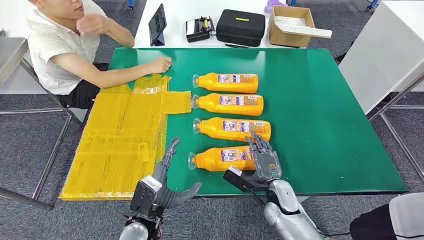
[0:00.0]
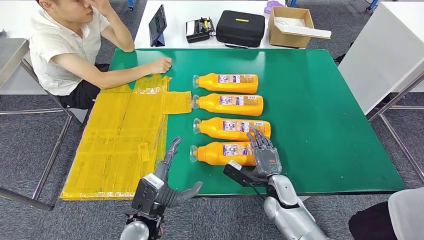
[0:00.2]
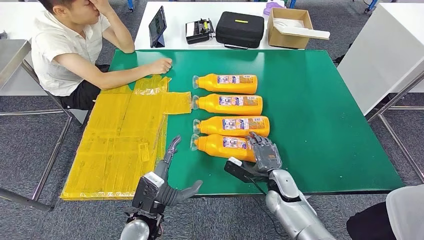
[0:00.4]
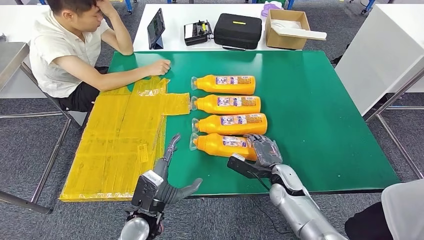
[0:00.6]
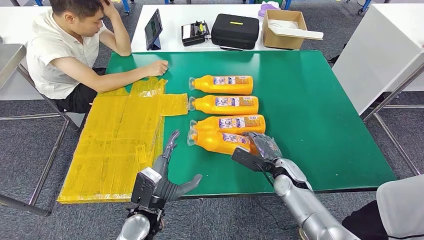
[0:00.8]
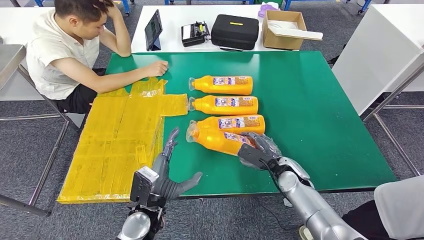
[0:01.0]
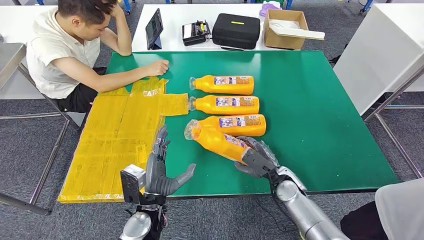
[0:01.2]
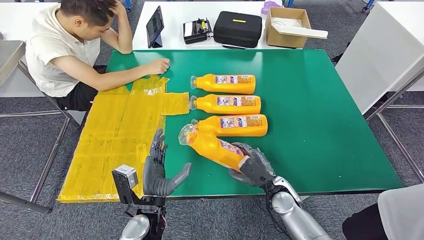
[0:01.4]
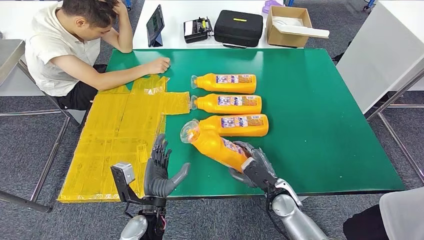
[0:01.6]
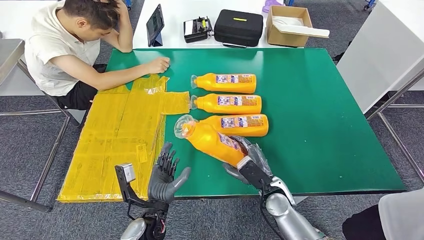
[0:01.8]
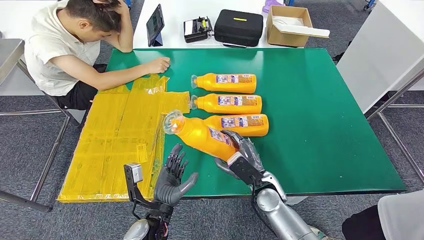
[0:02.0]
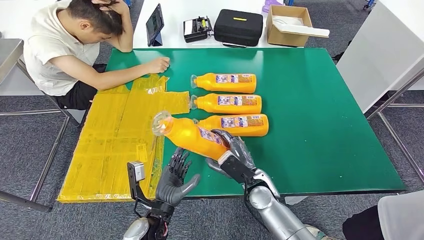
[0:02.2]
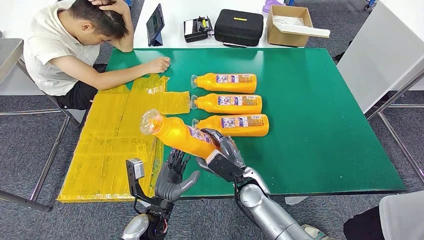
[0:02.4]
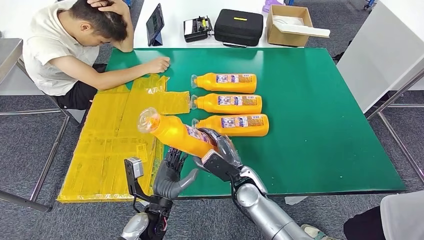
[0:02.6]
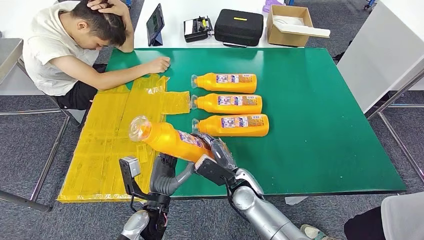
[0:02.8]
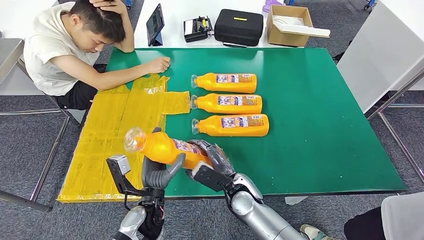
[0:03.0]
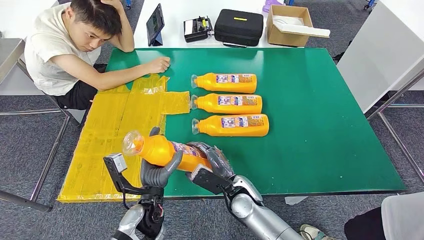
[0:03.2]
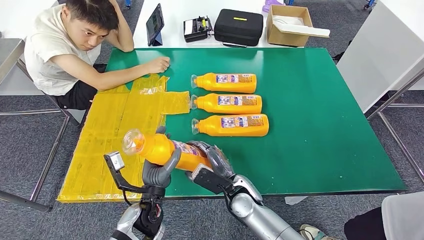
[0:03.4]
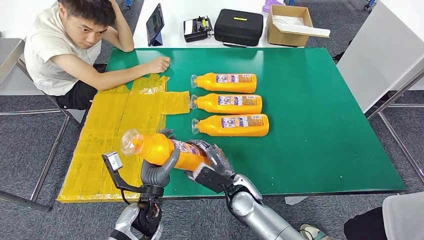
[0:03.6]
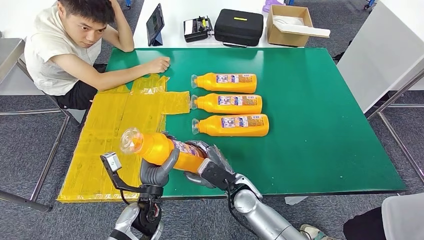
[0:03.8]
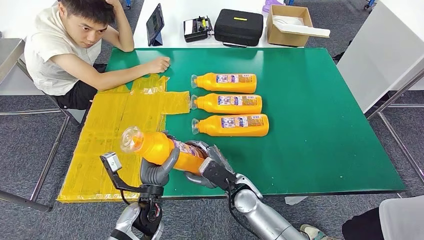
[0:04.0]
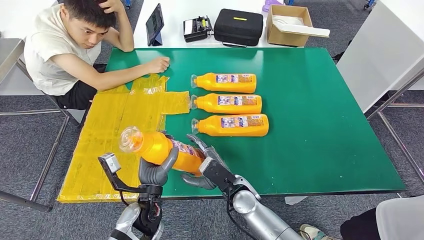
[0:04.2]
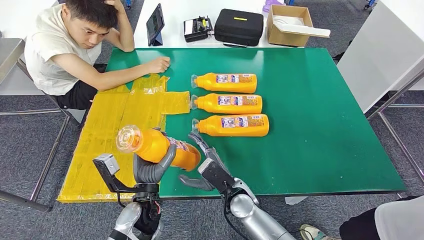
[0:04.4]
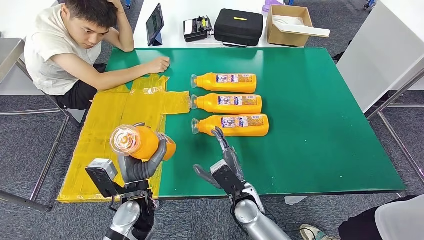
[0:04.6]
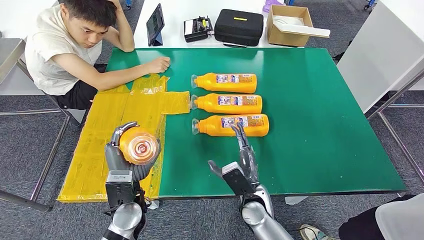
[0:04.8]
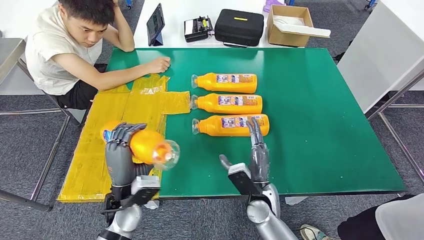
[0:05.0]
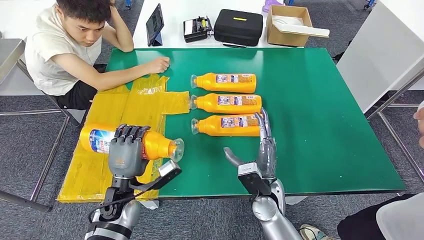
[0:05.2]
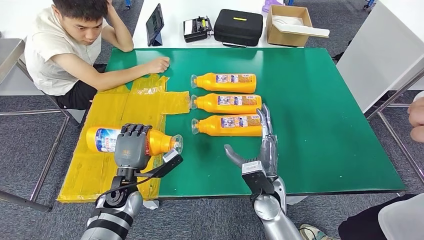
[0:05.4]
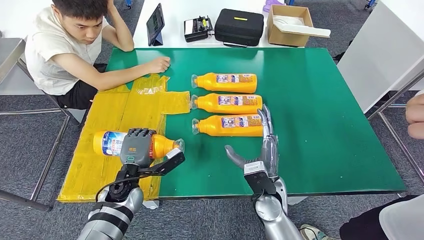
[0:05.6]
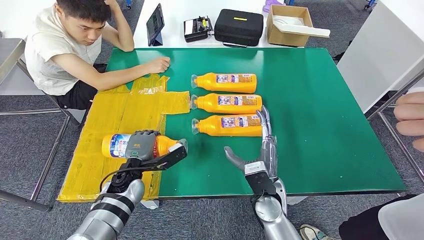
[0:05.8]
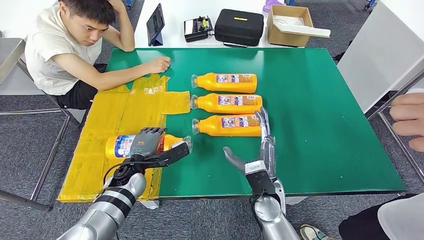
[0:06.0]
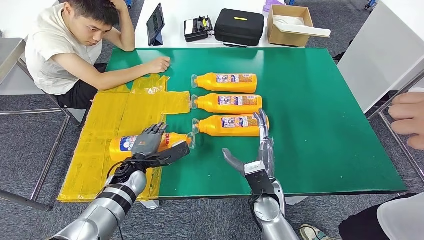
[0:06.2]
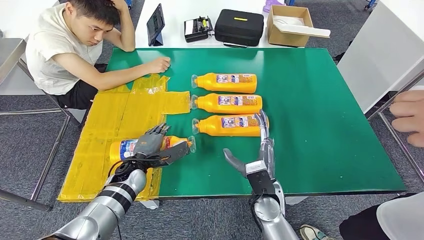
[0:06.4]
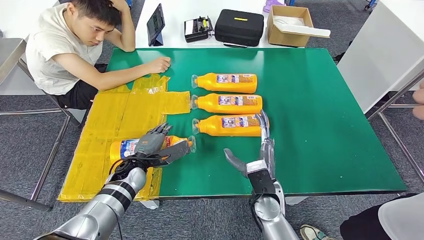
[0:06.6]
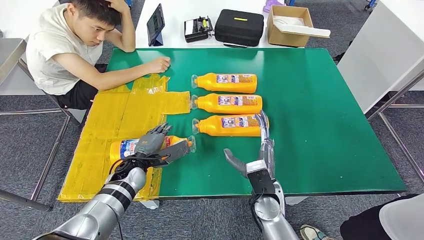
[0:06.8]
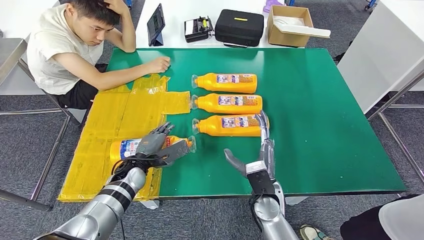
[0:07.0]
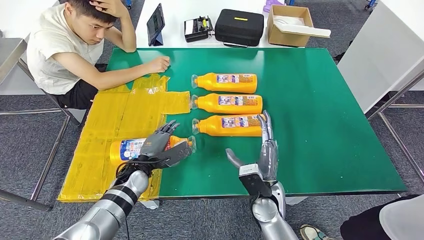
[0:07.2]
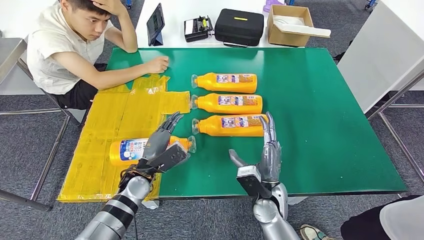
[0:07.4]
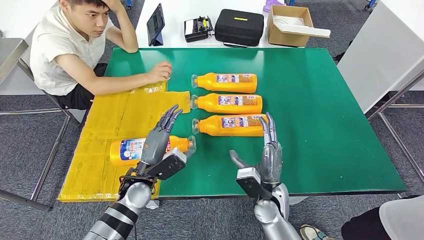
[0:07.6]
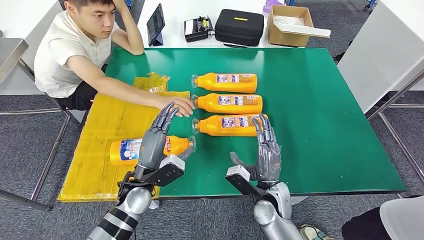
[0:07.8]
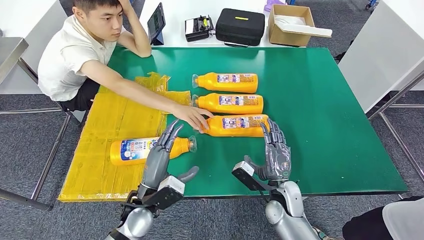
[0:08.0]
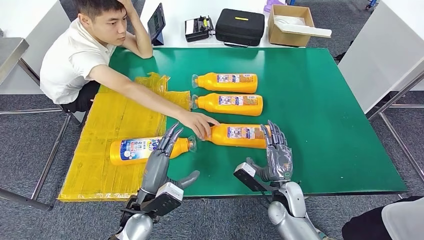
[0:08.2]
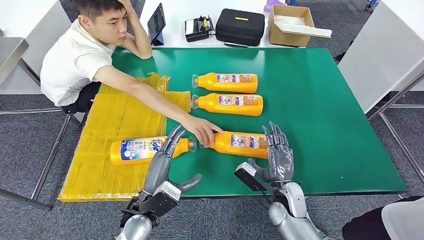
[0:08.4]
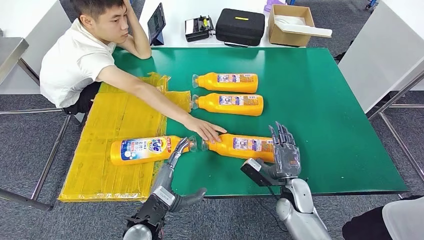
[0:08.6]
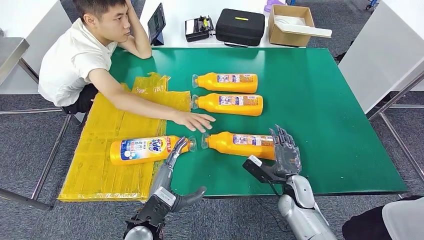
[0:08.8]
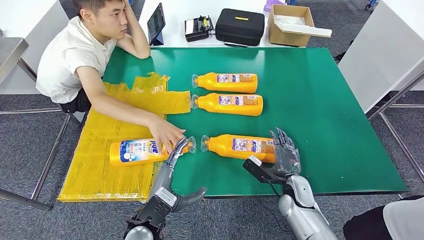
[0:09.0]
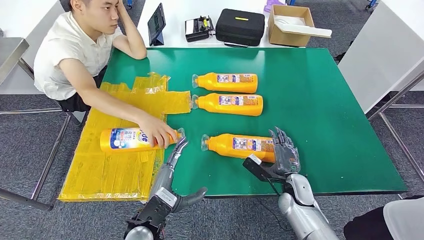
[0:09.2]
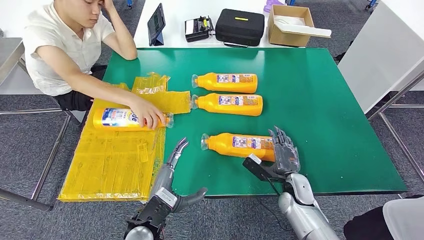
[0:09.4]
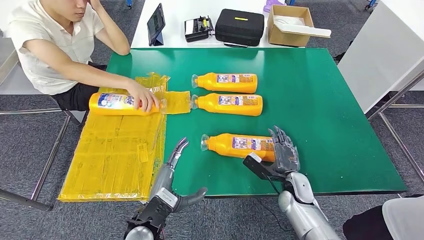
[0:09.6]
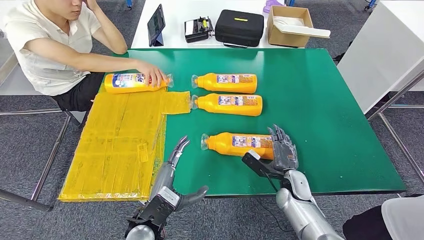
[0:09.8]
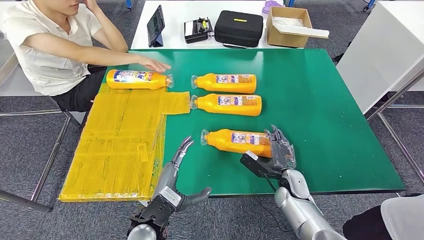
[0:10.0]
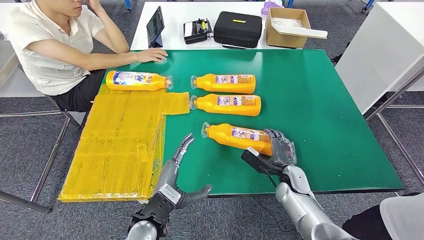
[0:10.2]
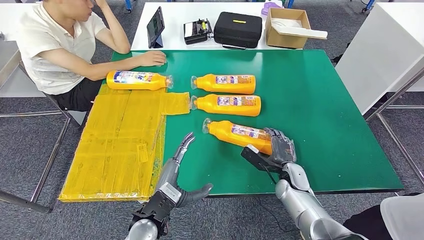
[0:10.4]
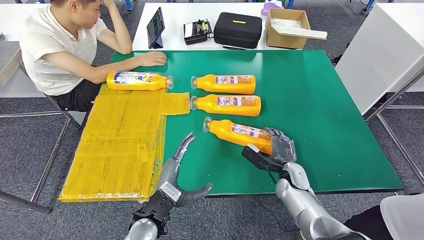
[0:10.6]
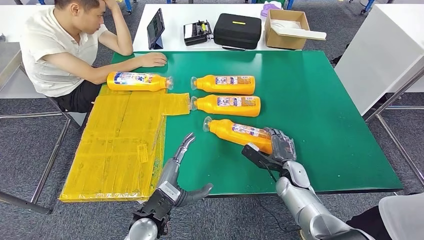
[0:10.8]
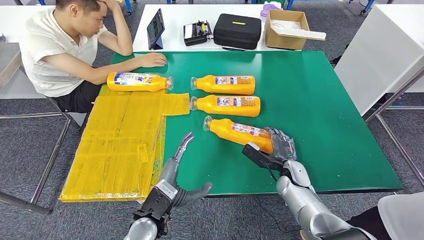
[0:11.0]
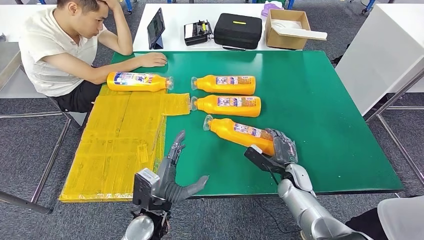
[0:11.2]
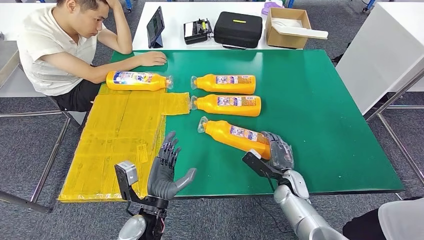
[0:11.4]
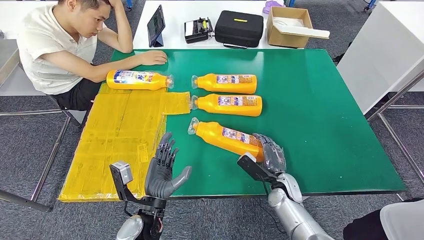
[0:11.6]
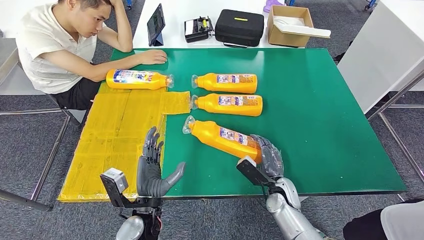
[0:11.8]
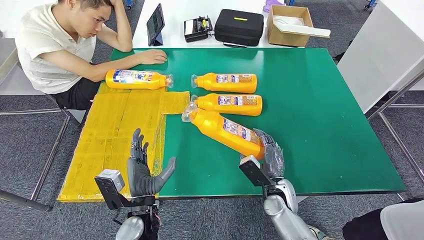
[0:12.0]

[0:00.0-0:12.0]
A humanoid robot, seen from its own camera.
Step, 0:00.0 to 0:02.6: Take the fast-moving consumer goods bottle from the table.
Step, 0:02.8 to 0:07.4: Flip the fast-moving consumer goods bottle to the front side.
0:01.6 to 0:03.0: The right hand shifts roughly 10 cm to the left.
0:03.0 to 0:04.4: The hands move only a little.
0:04.4 to 0:06.0: The left hand moves forward and to the left, approximately 10 cm. The right hand shifts about 5 cm to the right.
0:06.0 to 0:07.6: The left hand shifts by some 5 cm.

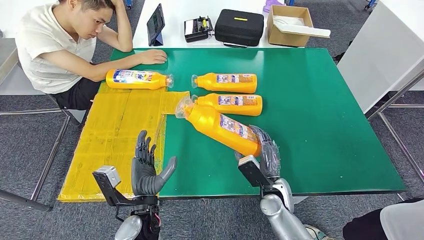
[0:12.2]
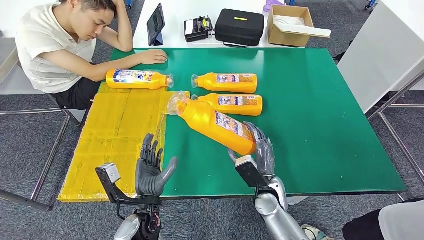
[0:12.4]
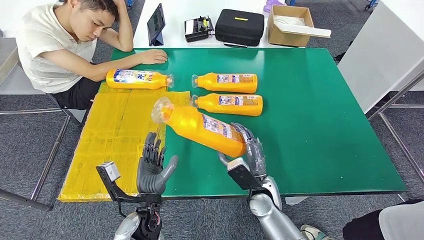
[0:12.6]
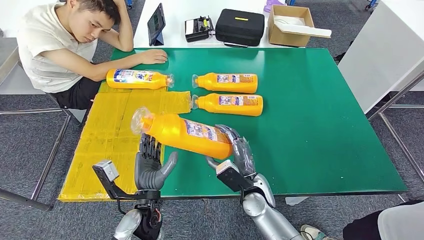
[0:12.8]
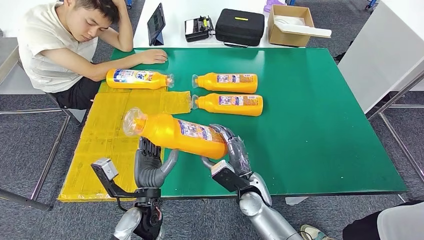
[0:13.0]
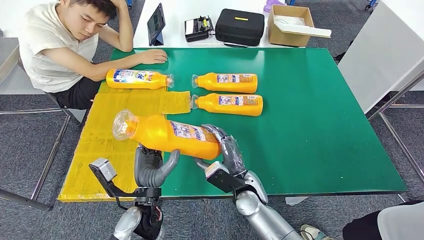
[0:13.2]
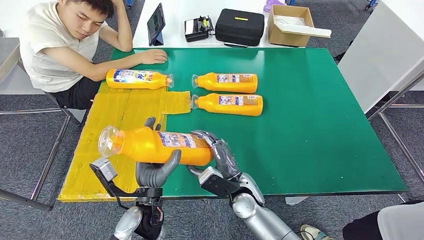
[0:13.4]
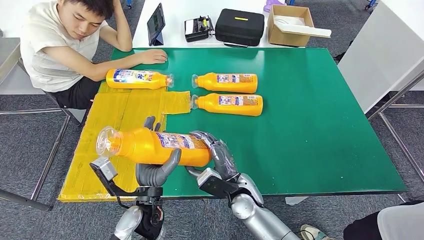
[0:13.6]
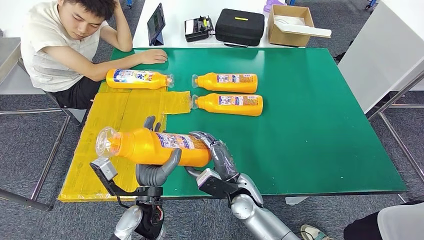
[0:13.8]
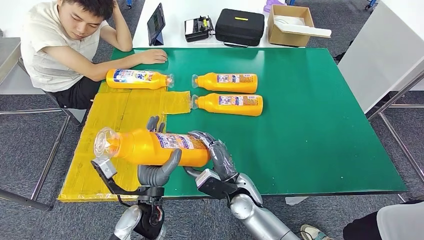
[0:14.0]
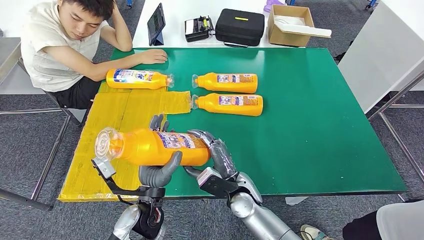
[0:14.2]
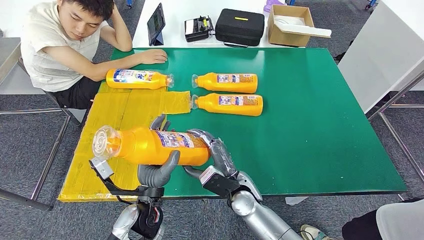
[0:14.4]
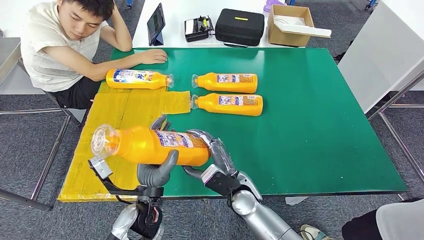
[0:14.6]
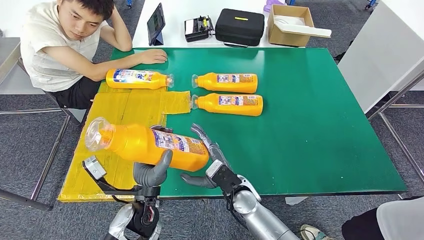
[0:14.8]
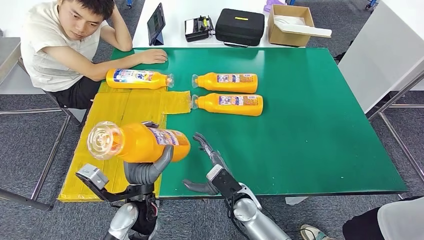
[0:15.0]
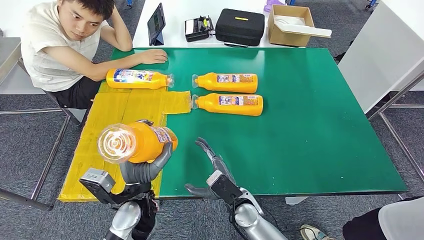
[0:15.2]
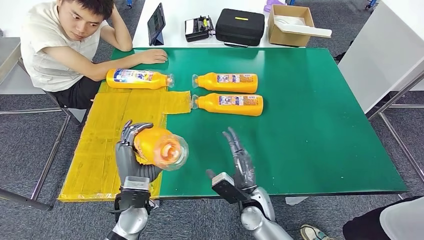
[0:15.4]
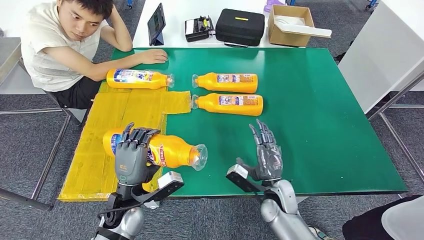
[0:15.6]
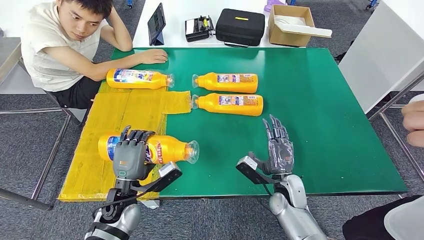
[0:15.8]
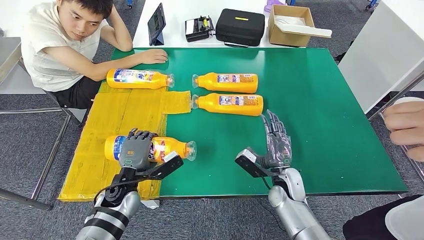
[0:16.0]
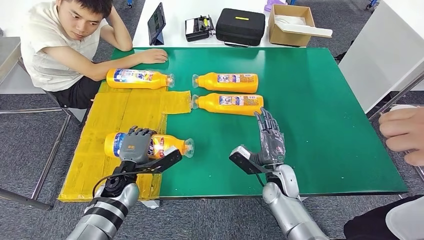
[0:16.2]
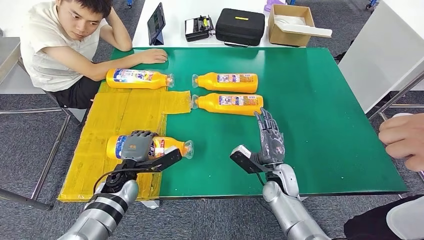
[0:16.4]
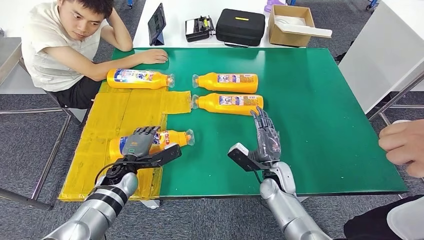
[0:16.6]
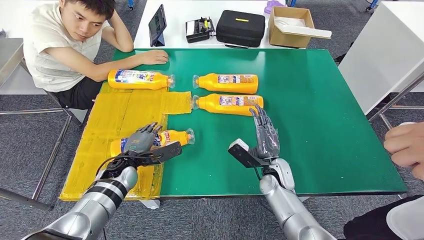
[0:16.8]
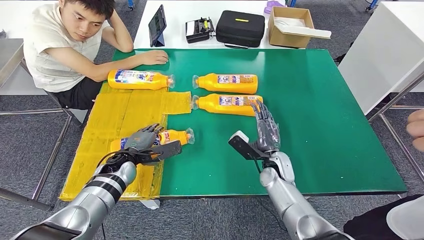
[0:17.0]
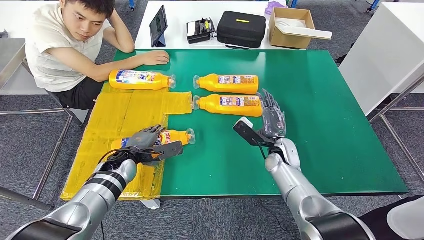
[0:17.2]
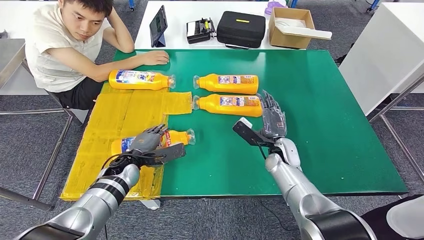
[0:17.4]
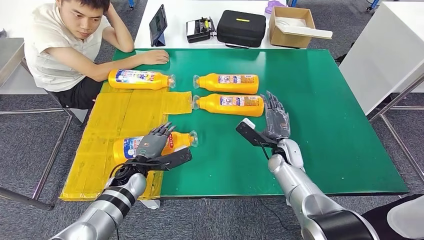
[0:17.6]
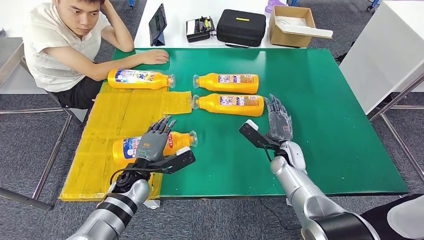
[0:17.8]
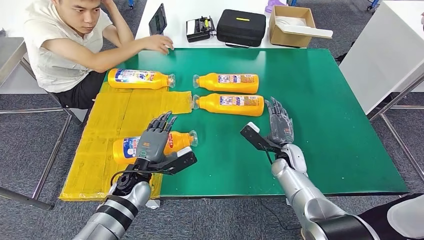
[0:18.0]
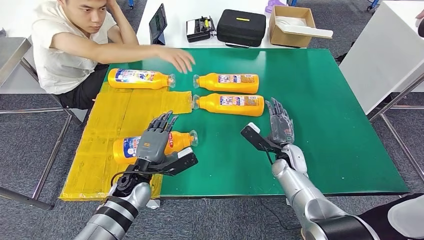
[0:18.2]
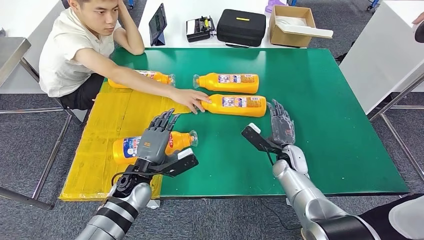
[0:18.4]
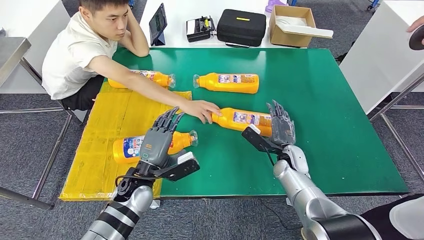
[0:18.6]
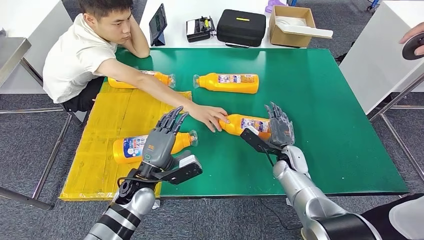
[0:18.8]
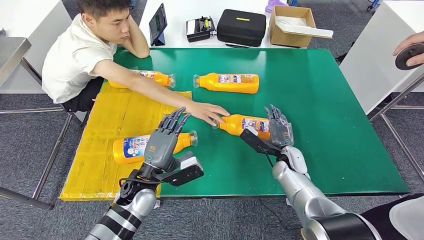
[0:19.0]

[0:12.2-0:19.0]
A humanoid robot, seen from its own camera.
Step, 0:12.6 to 0:18.2: Flip the fast-moving consumer goods bottle to the front side.
0:12.2 to 0:13.6: The right hand goes about 10 cm to the left.
0:15.0 to 0:16.2: The right hand heads to the right and forward, covering roughly 15 cm. The left hand goes some 15 cm forward, to the left and downward.
